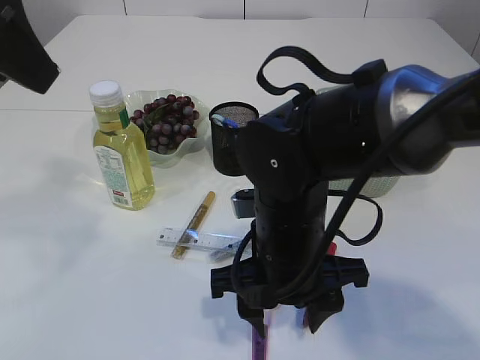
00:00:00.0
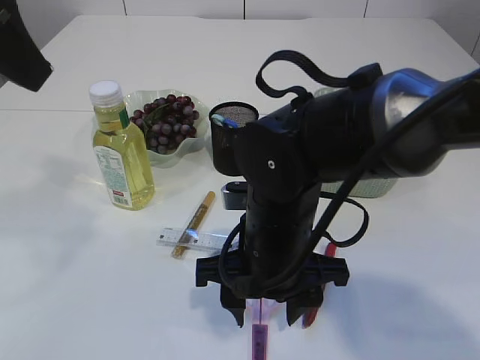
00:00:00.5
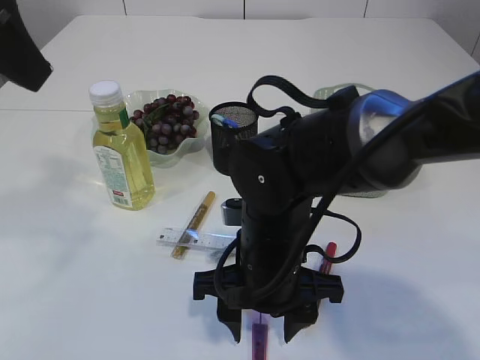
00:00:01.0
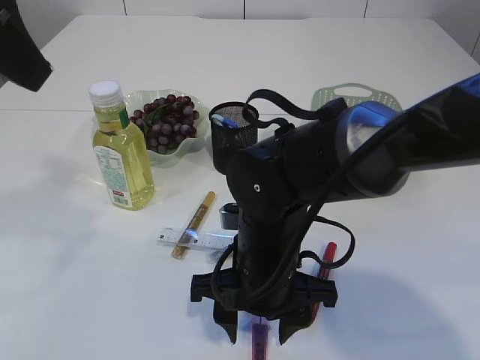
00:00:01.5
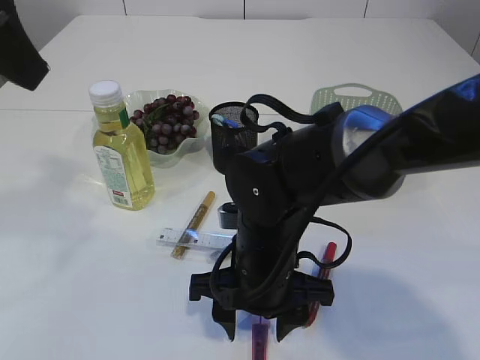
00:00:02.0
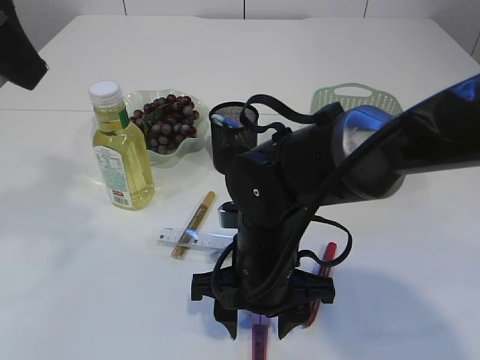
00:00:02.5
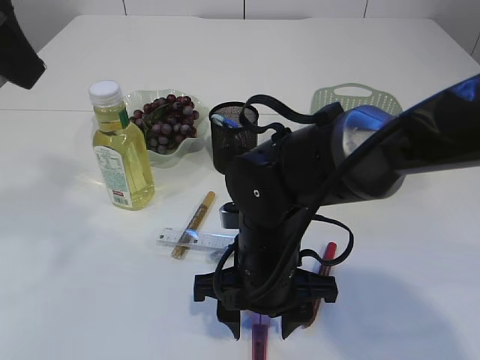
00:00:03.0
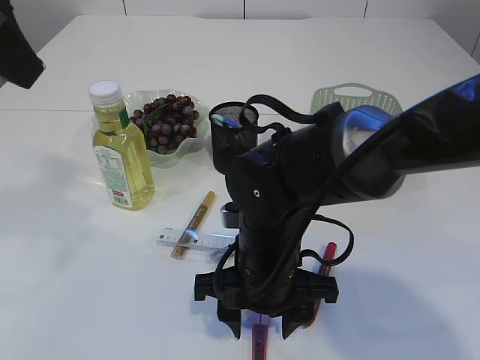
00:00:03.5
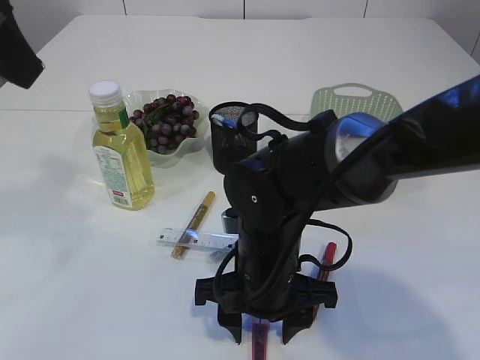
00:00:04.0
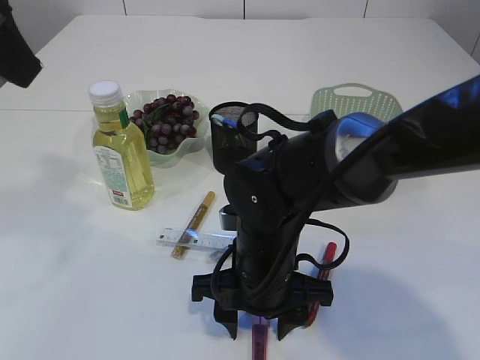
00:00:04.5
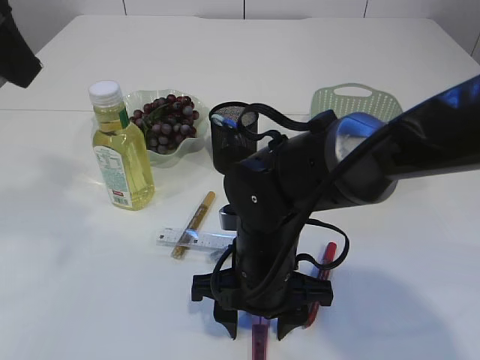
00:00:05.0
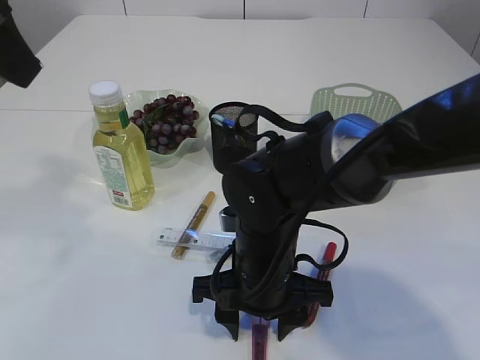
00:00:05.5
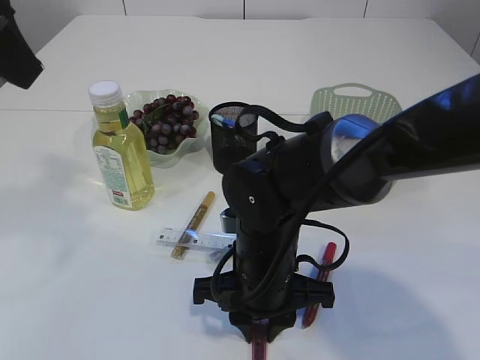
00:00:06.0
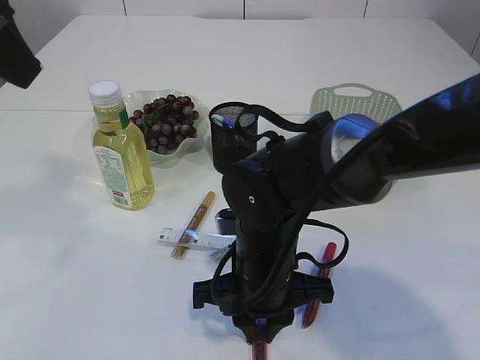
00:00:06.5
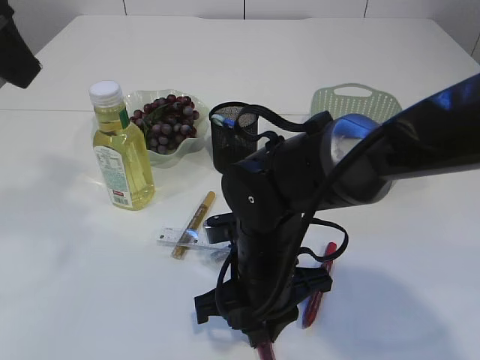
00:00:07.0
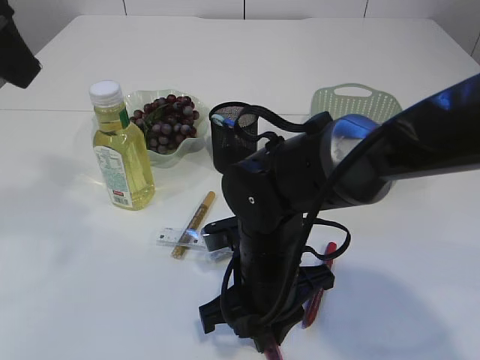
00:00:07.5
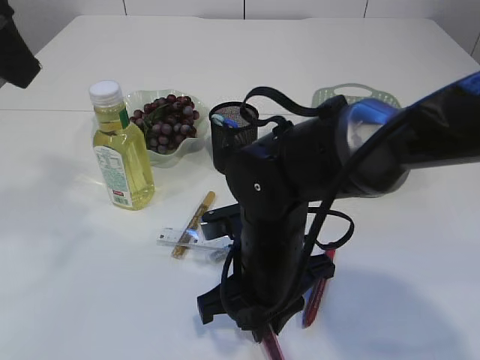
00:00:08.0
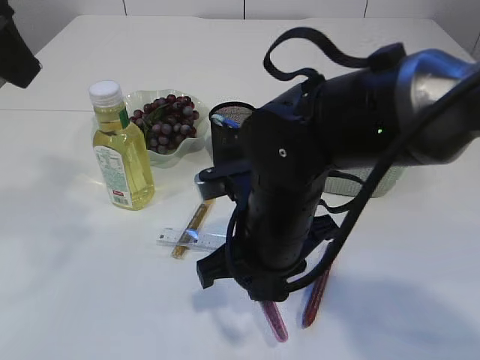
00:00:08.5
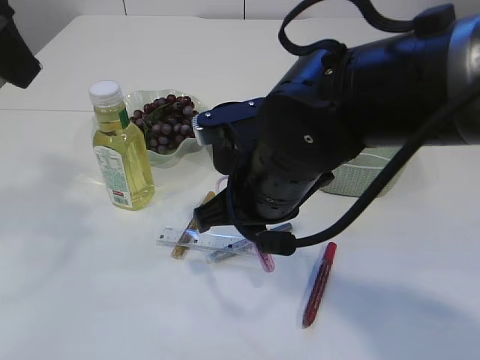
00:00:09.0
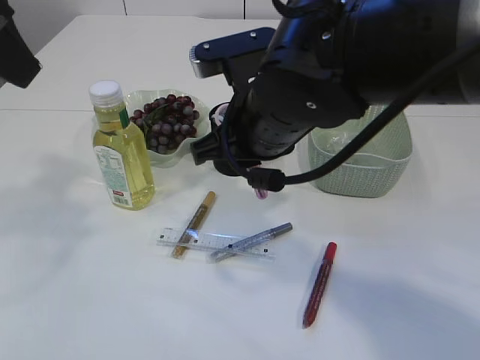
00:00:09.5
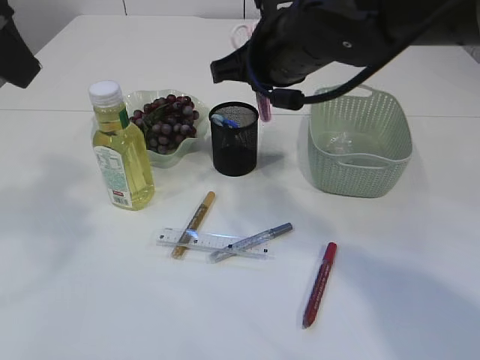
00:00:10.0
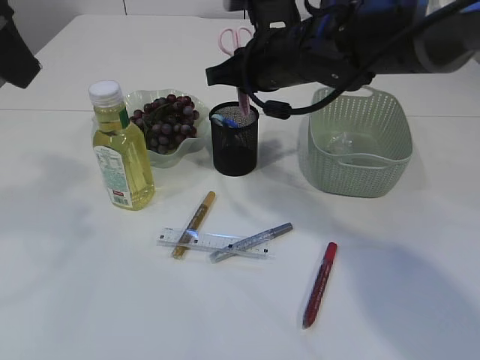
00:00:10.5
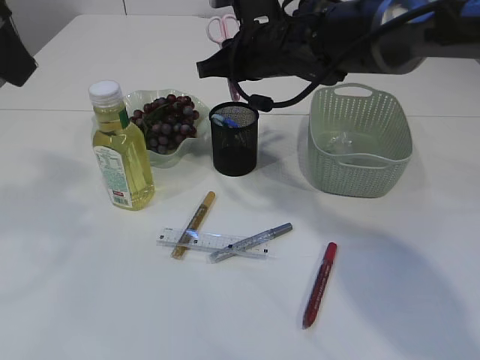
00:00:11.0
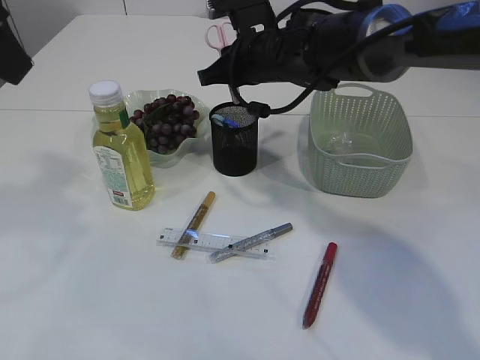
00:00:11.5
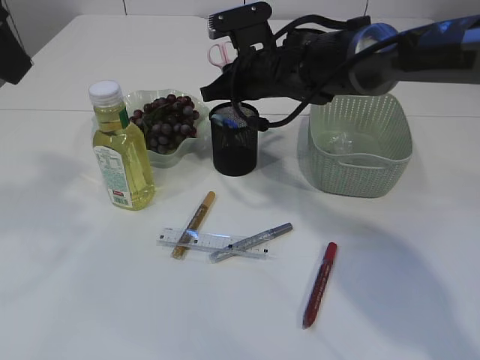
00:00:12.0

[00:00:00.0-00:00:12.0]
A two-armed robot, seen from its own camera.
Step, 00:00:00.0 to 00:00:08.5: pick up the pink scissors.
00:00:00.0 to 00:00:02.0: There are only small adjustments of the grippers.
00:00:02.0 to 00:00:04.0: Neither gripper changes place.
00:00:04.0 to 00:00:06.0: The right gripper closes its fingers.
00:00:08.0 to 00:00:10.0: The right gripper is displaced upward and forward by about 20 cm.
00:00:10.0 to 00:00:12.0: The right gripper goes about 15 cm forward and downward.

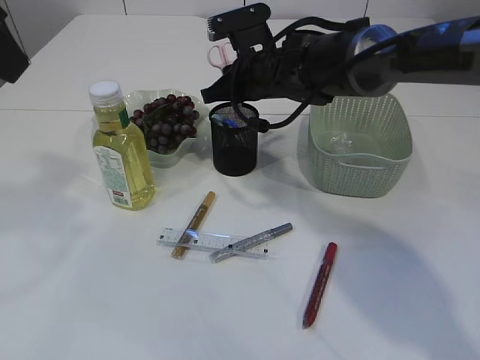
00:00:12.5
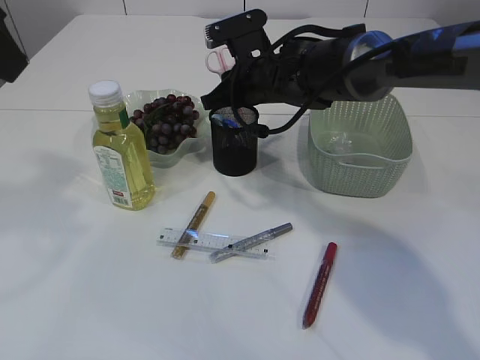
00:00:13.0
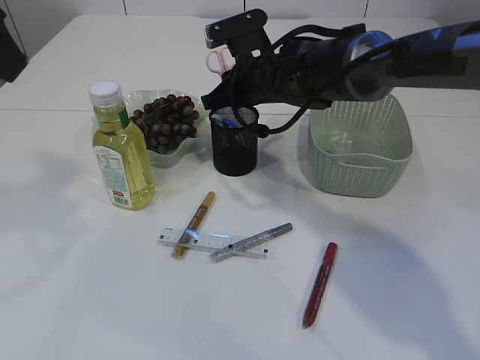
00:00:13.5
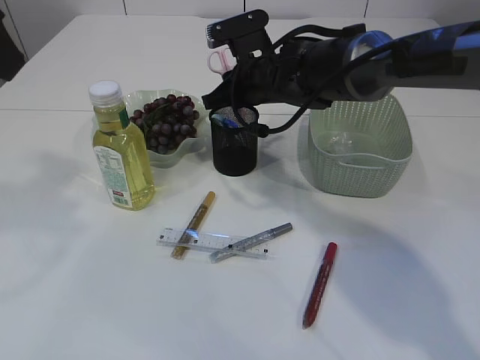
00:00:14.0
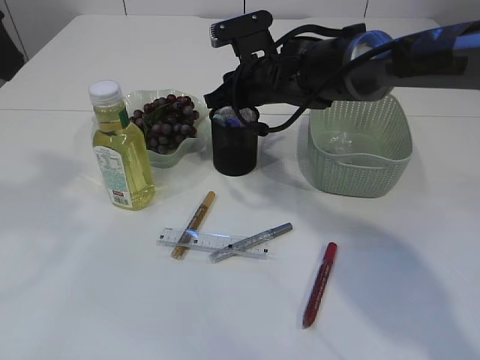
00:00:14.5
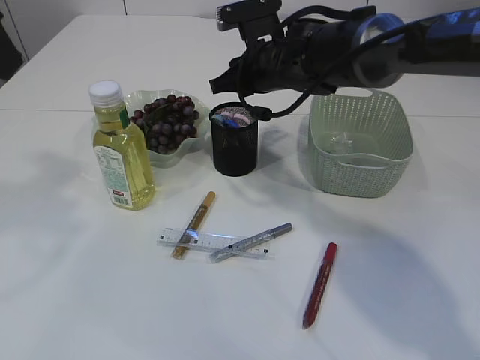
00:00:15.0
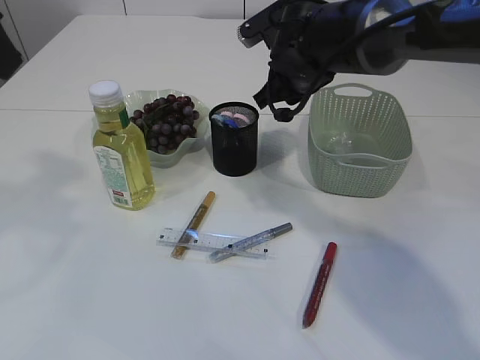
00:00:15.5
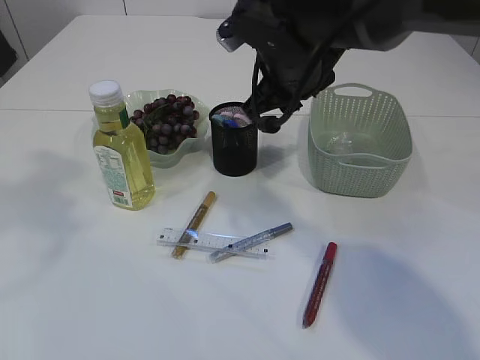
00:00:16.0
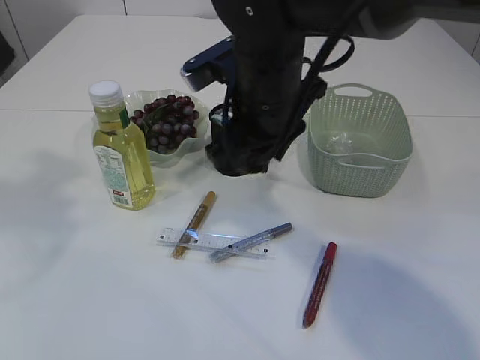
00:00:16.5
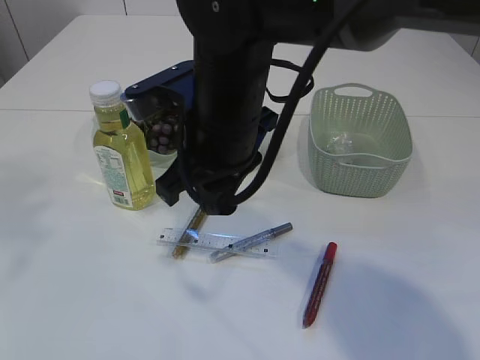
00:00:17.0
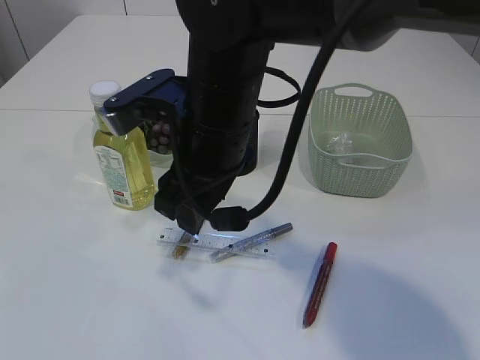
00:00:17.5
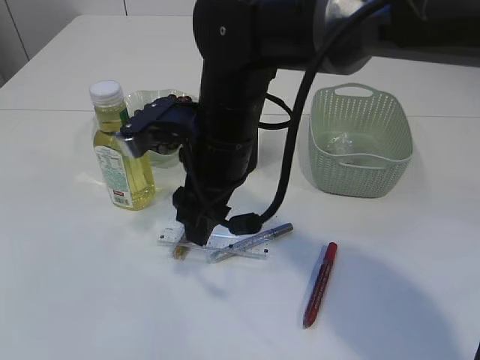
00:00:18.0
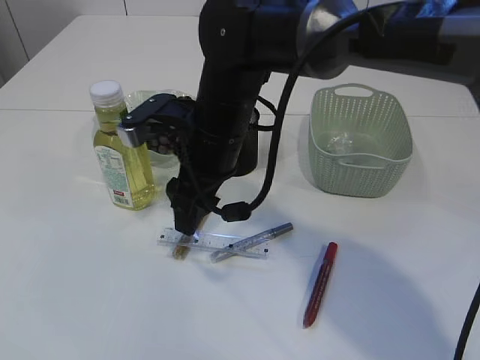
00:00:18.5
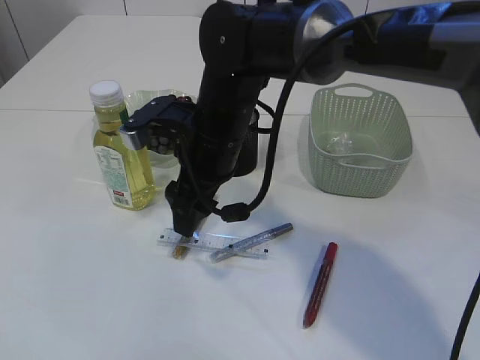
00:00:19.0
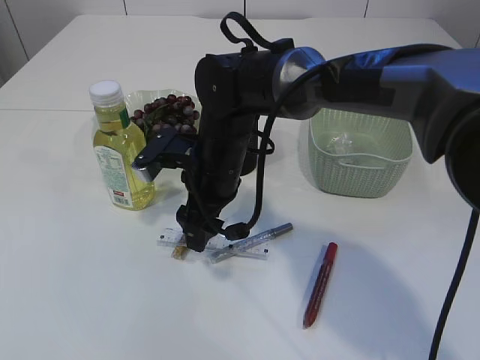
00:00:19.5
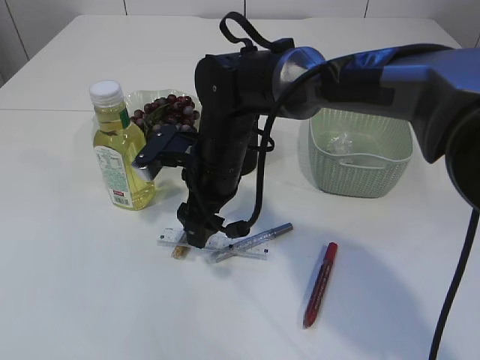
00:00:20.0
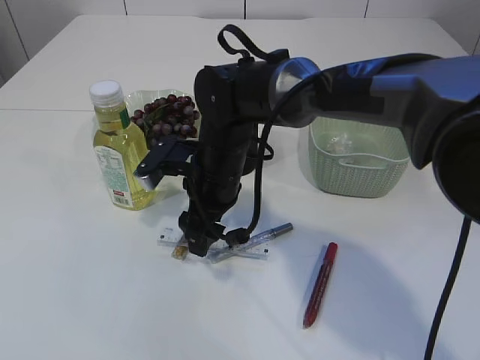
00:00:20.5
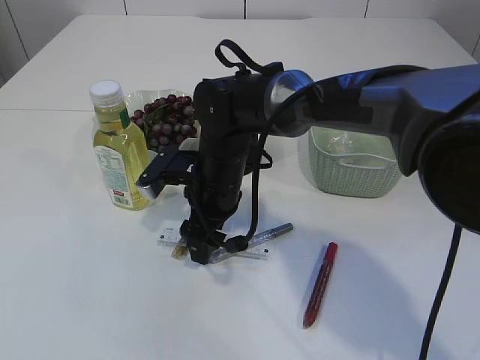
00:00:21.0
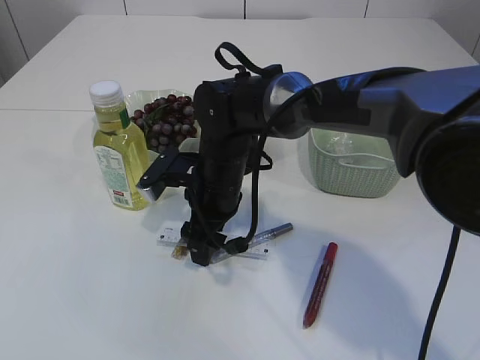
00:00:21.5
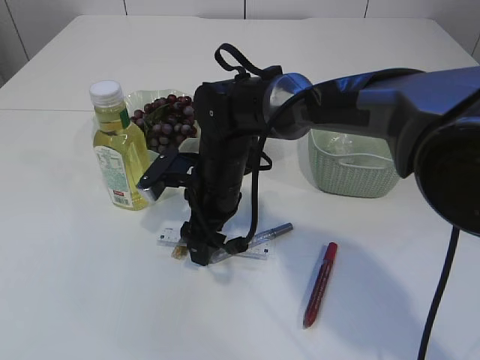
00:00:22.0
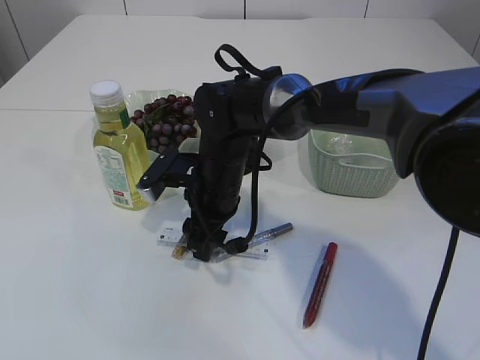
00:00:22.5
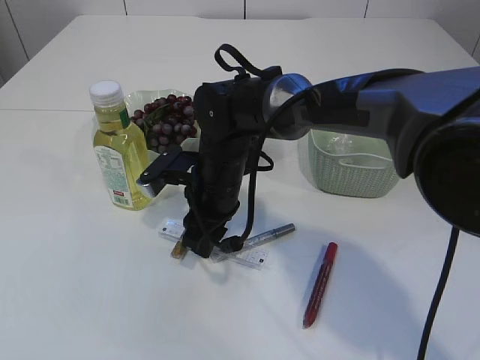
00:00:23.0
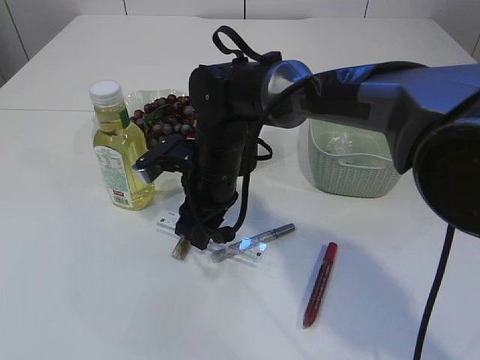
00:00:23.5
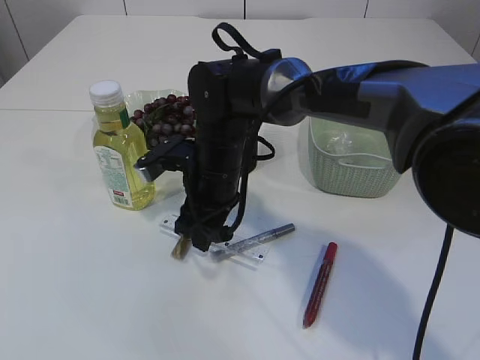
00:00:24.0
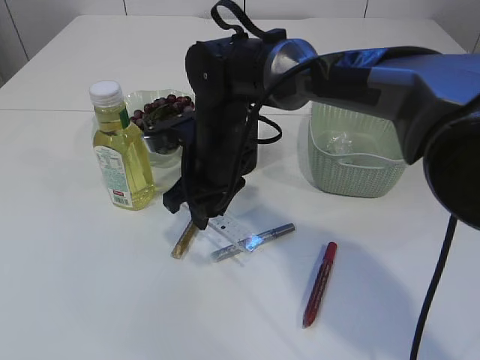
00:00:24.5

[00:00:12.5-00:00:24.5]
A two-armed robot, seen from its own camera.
Step, 00:00:12.5 to 00:00:15.0: Place the pink scissors into the pen holder.
00:00:12.5 to 00:00:14.5: Both grippers stay put.
00:00:14.5 to 00:00:16.5: The right gripper goes roughly 15 cm backward and upward.
00:00:16.5 to 00:00:18.5: The right gripper ends up some 5 cm from where it was, and opens, while the left gripper moves backward, upward and to the left, about 15 cm.
00:00:18.5 to 00:00:20.5: The right gripper moves downward, approximately 5 cm.
00:00:20.5 to 00:00:22.5: The grippers make only small movements.

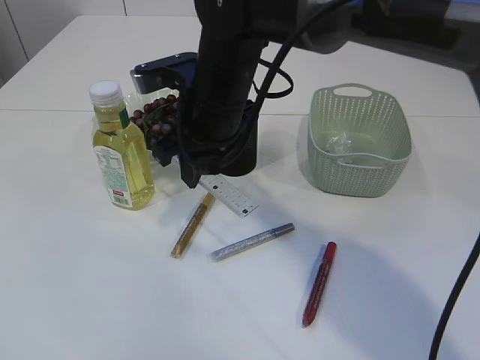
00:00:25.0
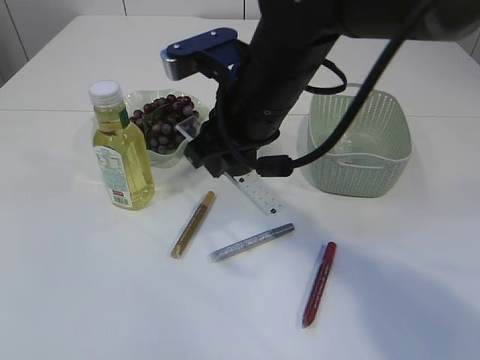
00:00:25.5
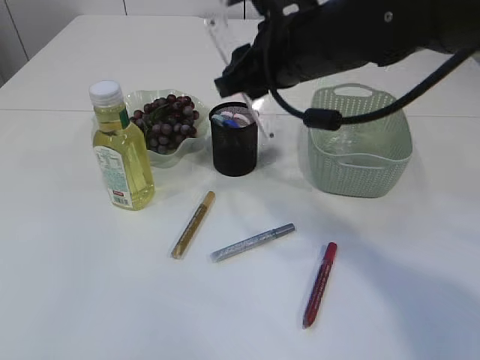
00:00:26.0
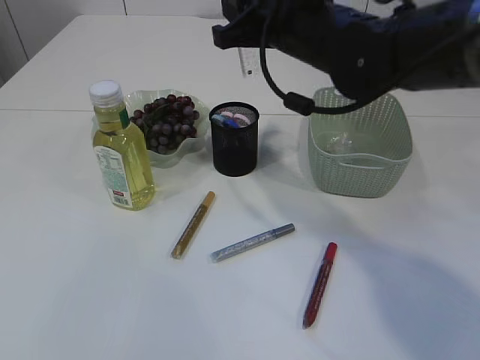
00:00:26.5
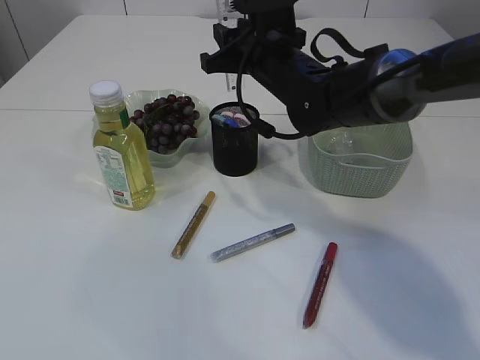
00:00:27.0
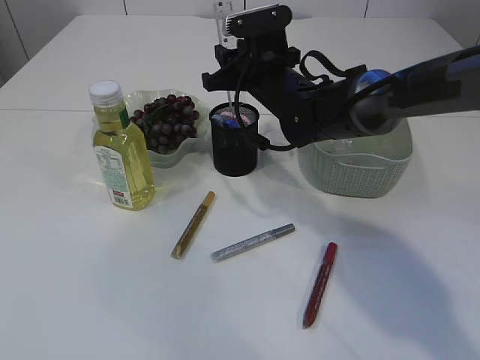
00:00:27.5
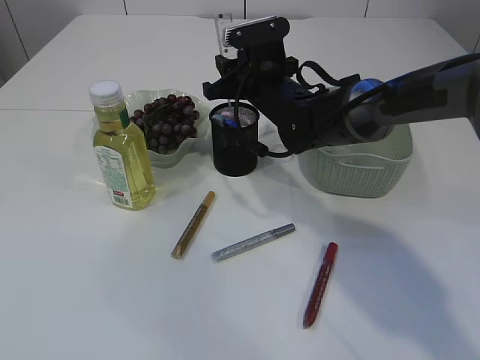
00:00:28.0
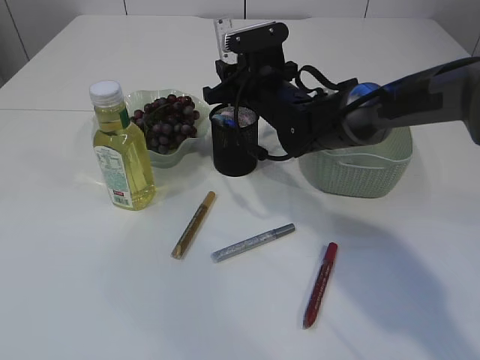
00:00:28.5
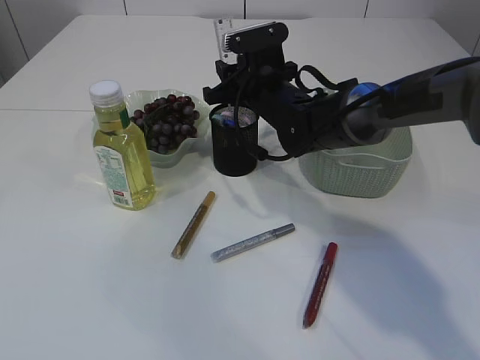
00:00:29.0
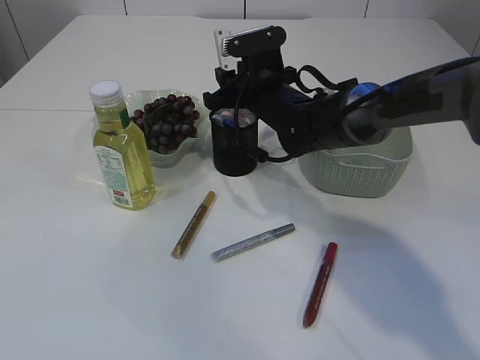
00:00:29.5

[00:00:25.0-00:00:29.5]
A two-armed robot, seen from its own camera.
00:00:25.0 to 00:00:27.0: The right gripper moves forward and to the right, roughly 10 cm.
00:00:27.0 to 00:00:29.5: The right gripper goes approximately 5 cm downward.
